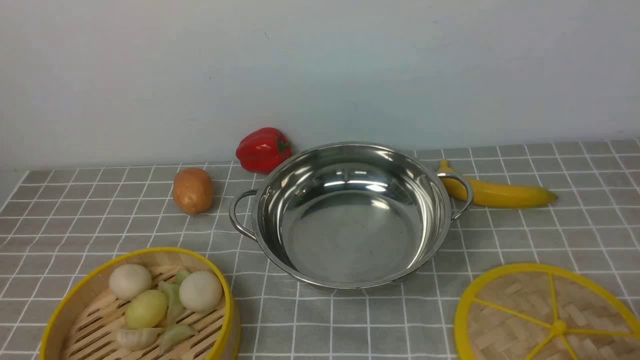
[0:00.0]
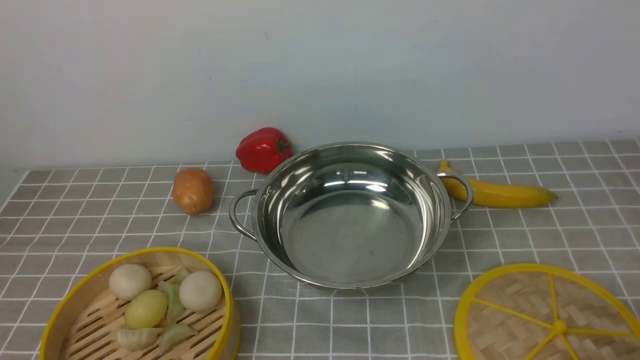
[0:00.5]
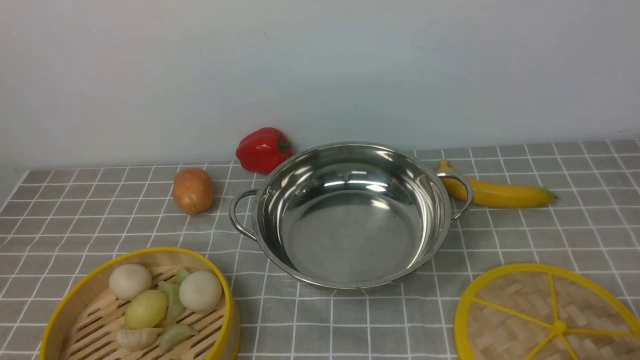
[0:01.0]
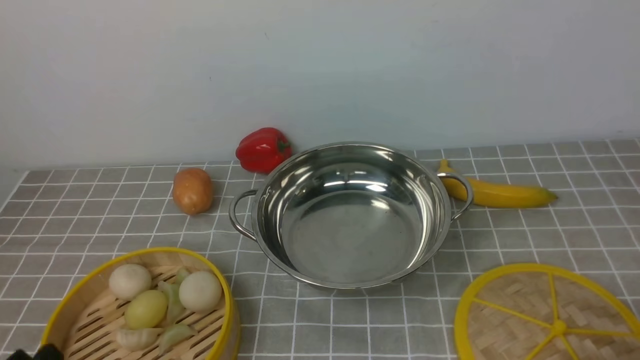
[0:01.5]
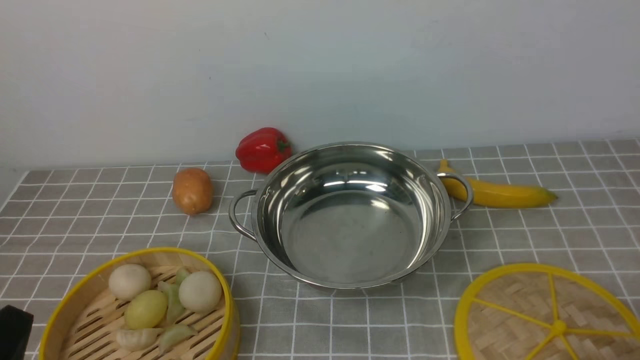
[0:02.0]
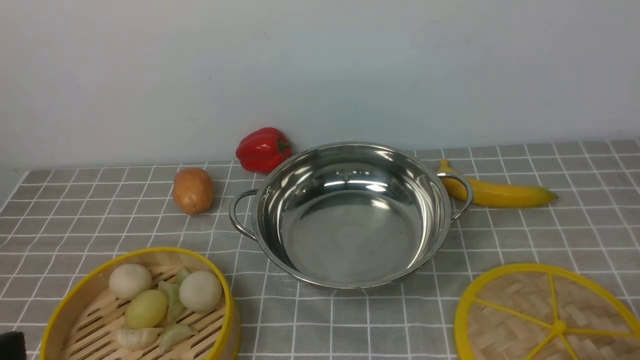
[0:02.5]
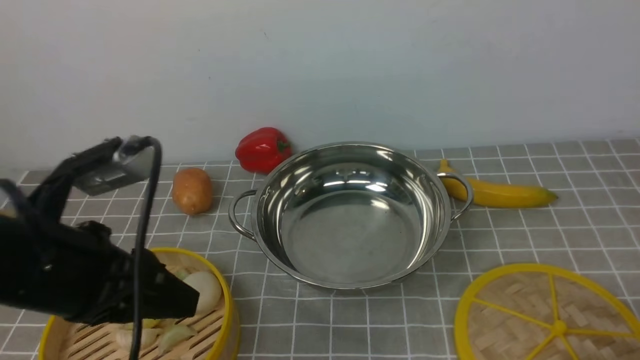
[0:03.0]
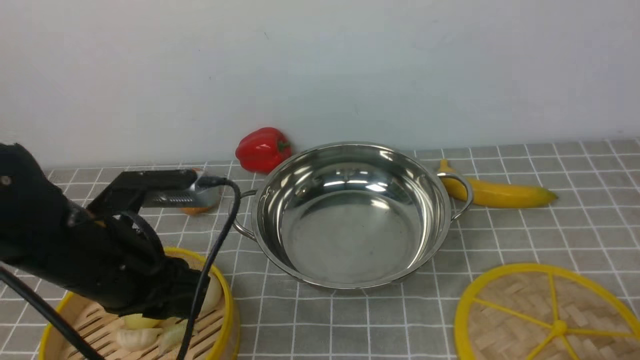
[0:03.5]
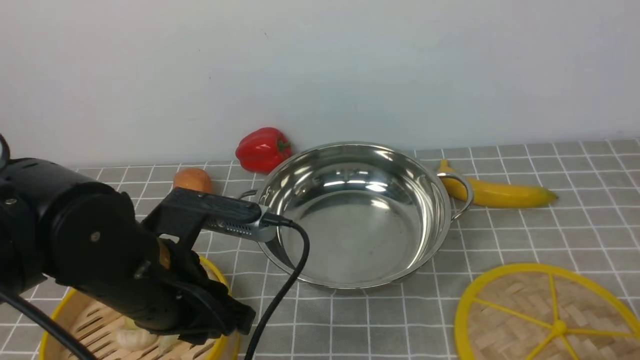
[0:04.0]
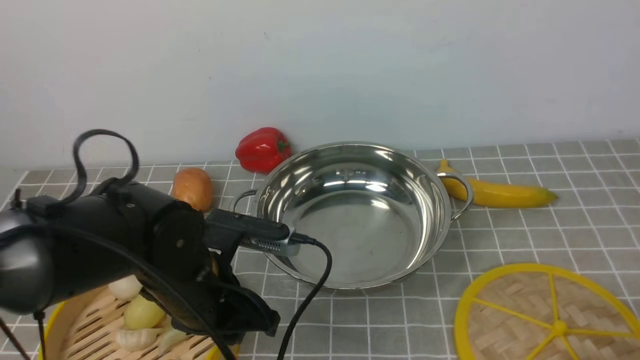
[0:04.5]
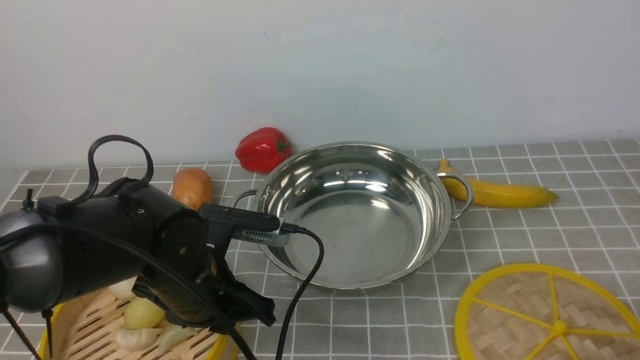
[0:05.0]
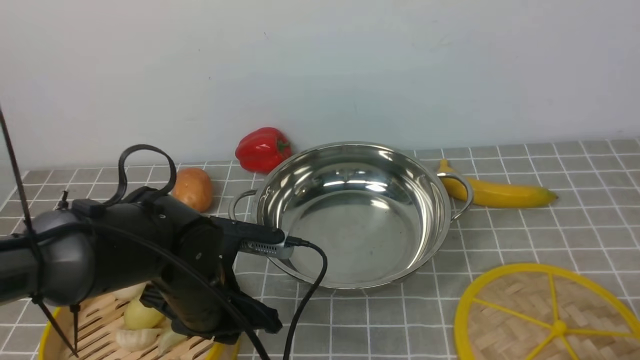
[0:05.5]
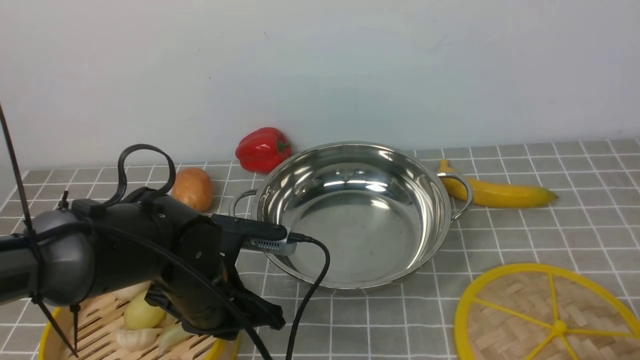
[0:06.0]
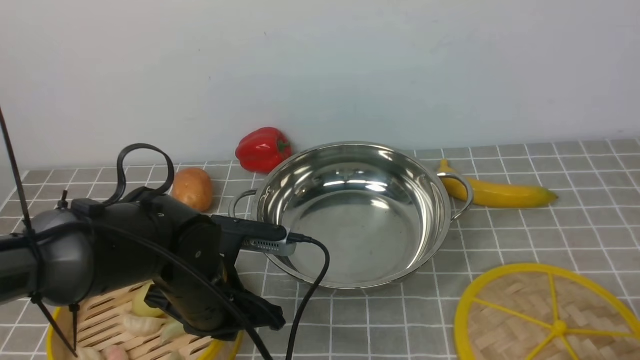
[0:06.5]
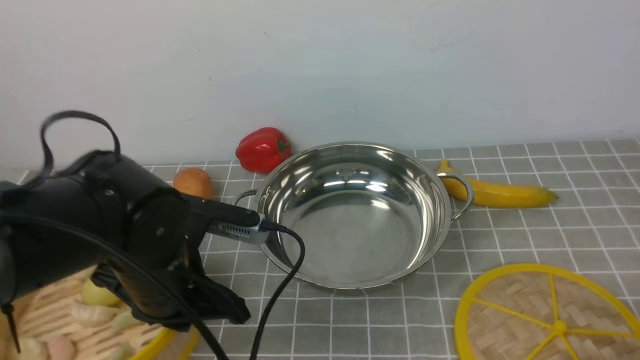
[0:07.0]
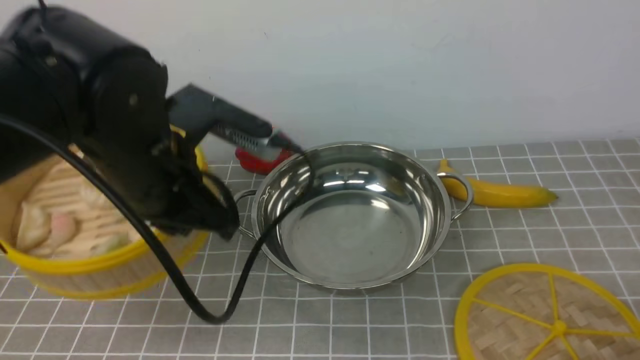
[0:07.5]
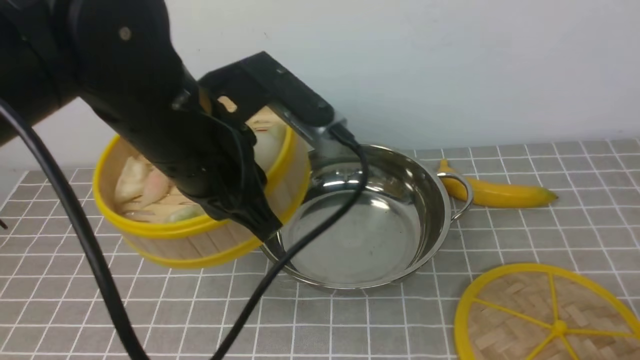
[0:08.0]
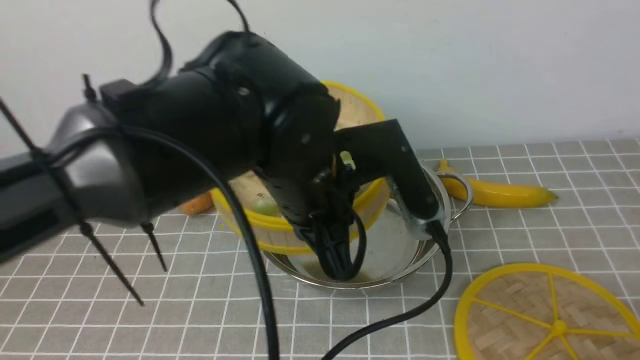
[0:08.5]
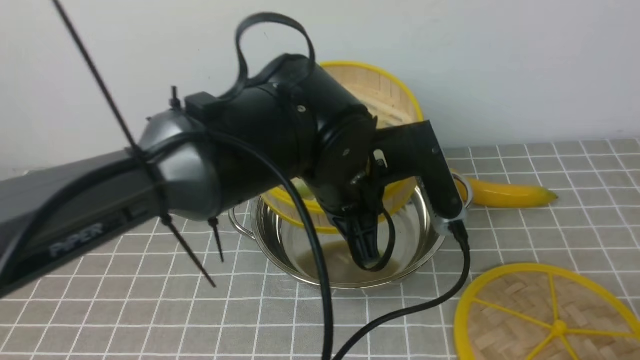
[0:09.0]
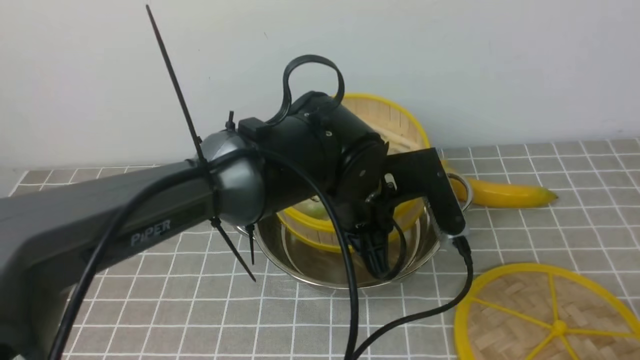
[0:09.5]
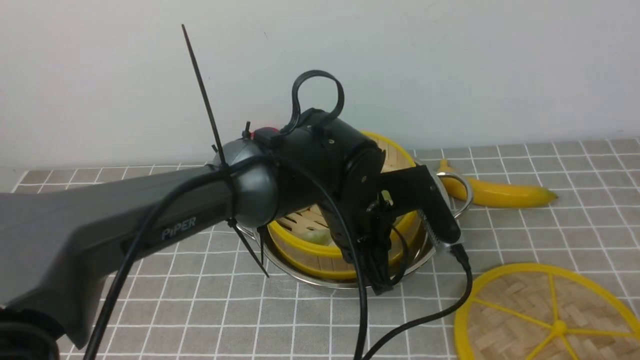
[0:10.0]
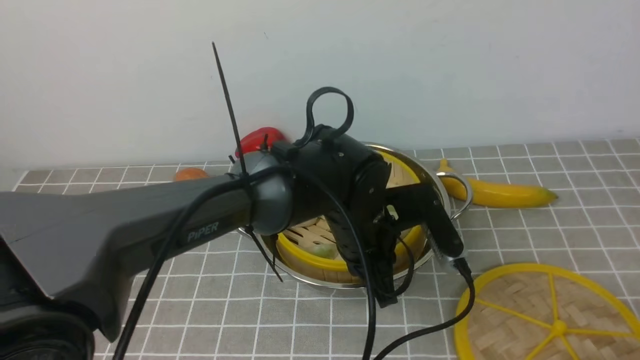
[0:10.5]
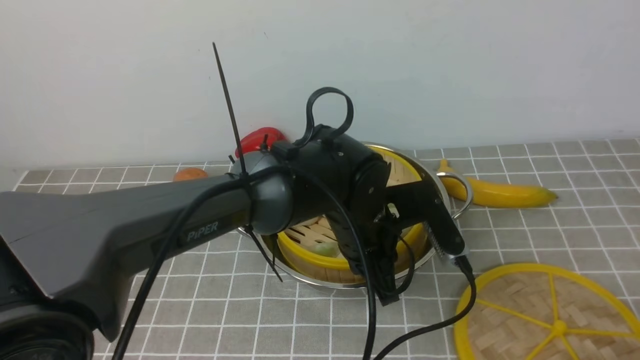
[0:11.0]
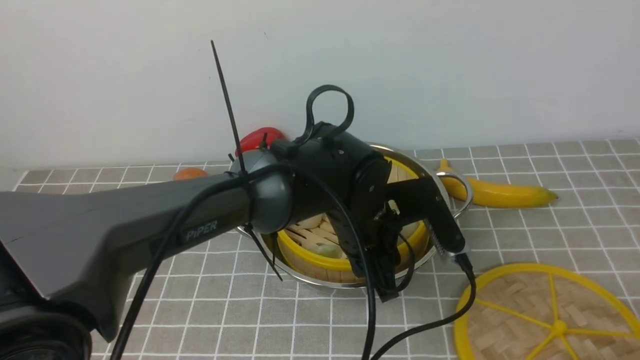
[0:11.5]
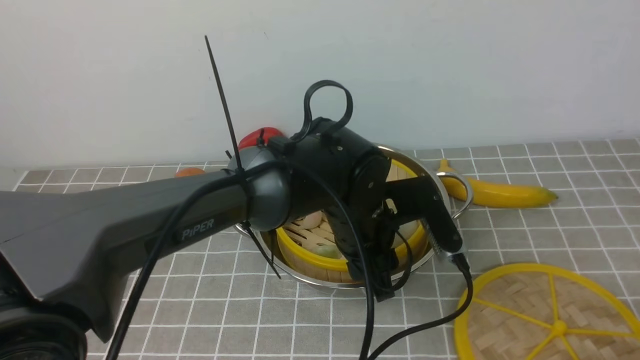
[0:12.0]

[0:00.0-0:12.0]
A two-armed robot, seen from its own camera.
Task of the whole recording: place the steamer in the pot on the grey tablecloth, and put the lid on the steamer.
Step, 0:00.0 to 0:06.5: use the left arm to lift the steamer closest to it.
0:00.0 to 0:02.0: The left gripper travels upward by some 5 cm.
0:02.0 to 0:04.0: The left gripper heads forward and to the right, covering some 20 cm.
0:04.0 to 0:06.0: The left gripper goes some 5 cm downward, and closes.
0:06.0 to 0:08.0: The left gripper moves upward, some 20 cm.
0:08.0 to 0:10.0: The left gripper heads downward, to the right and forward, covering some 20 cm.
0:10.0 to 0:12.0: The left gripper opens up.

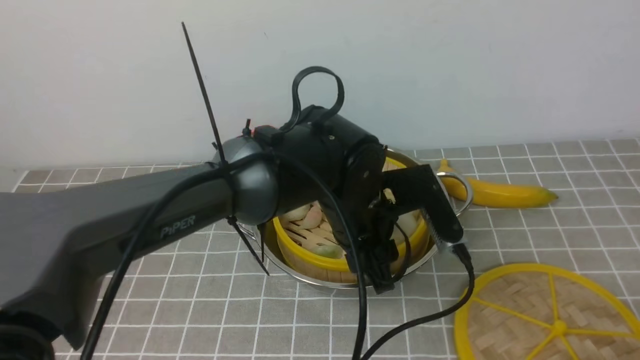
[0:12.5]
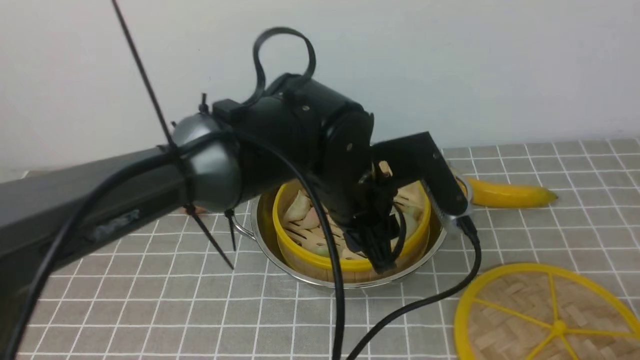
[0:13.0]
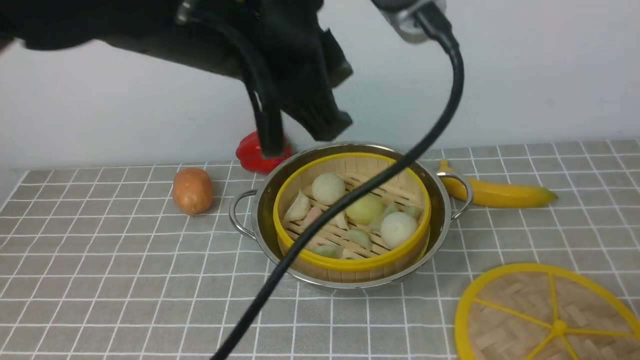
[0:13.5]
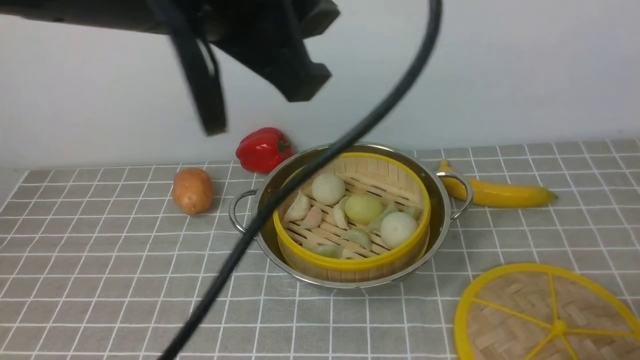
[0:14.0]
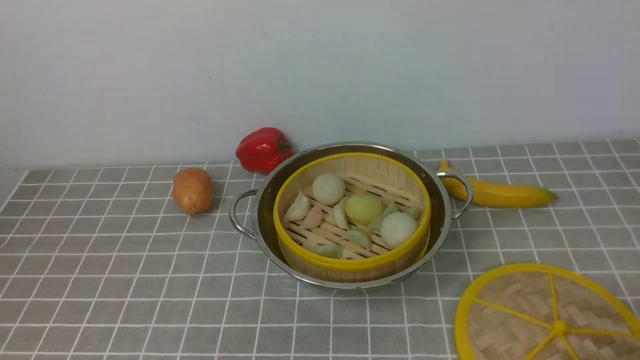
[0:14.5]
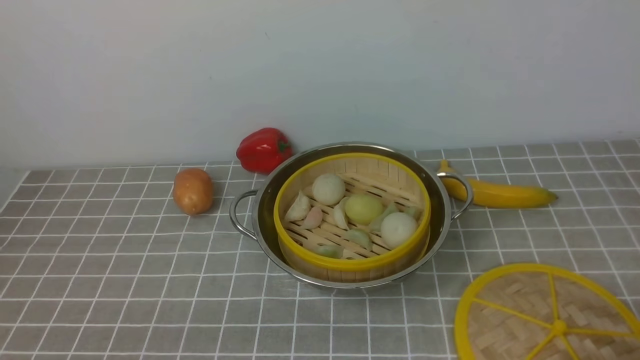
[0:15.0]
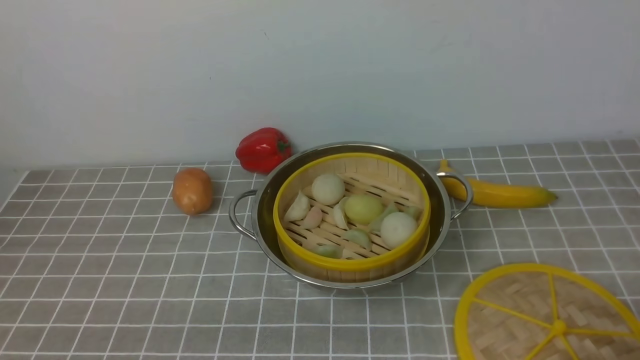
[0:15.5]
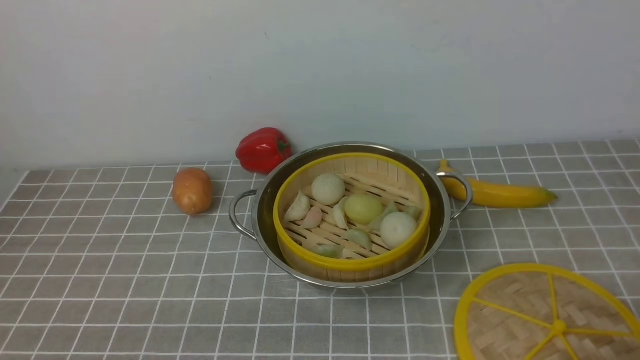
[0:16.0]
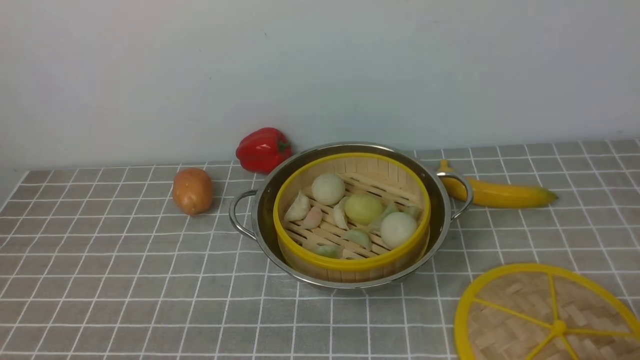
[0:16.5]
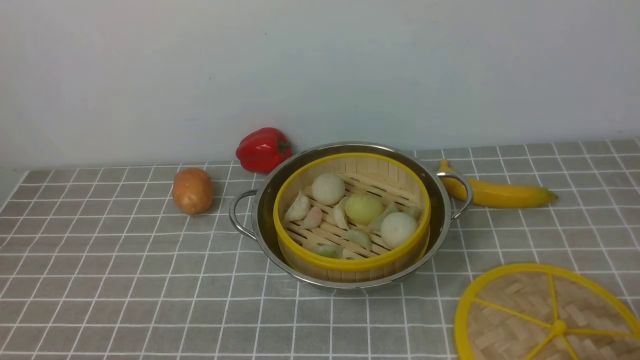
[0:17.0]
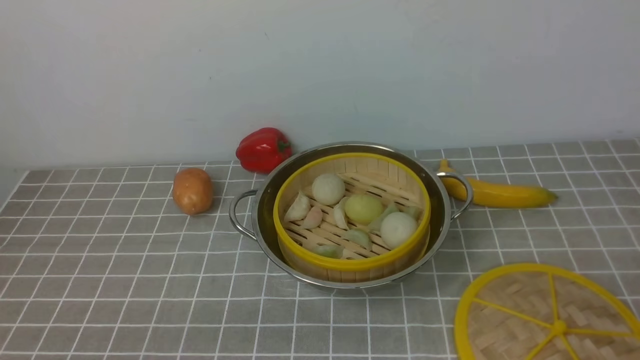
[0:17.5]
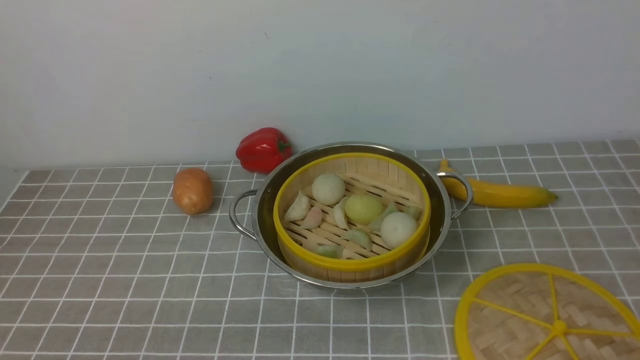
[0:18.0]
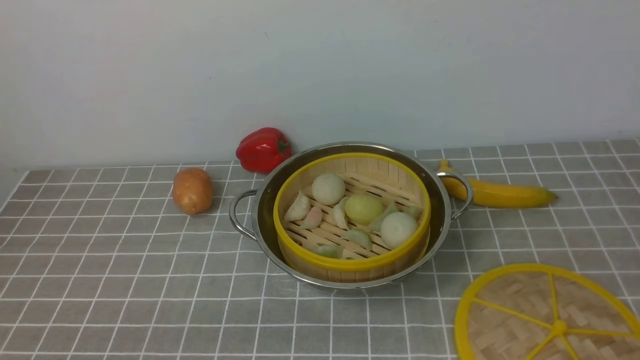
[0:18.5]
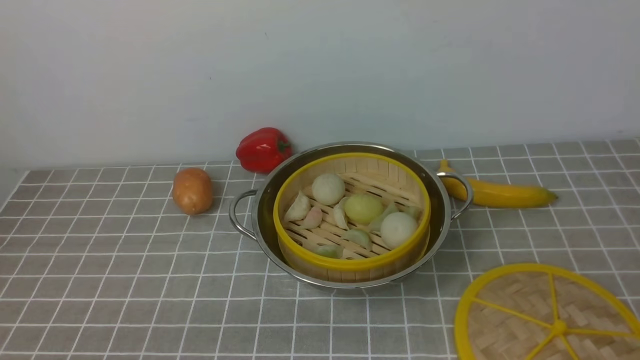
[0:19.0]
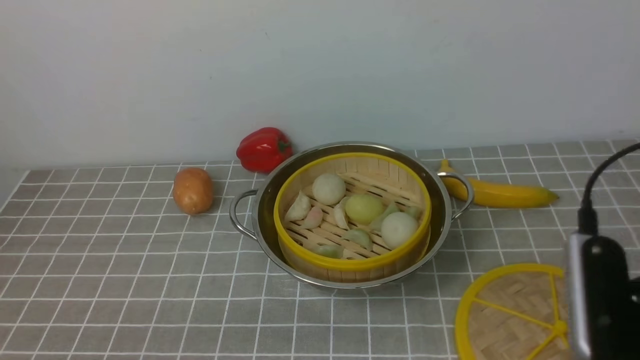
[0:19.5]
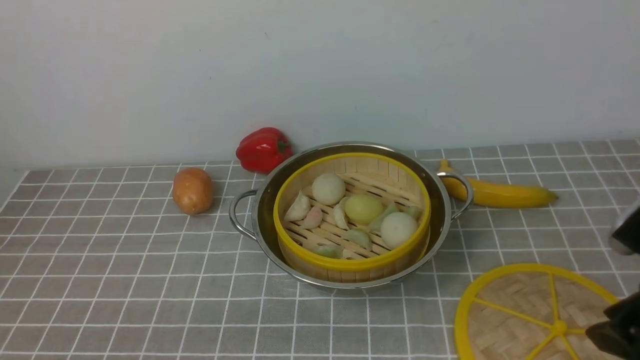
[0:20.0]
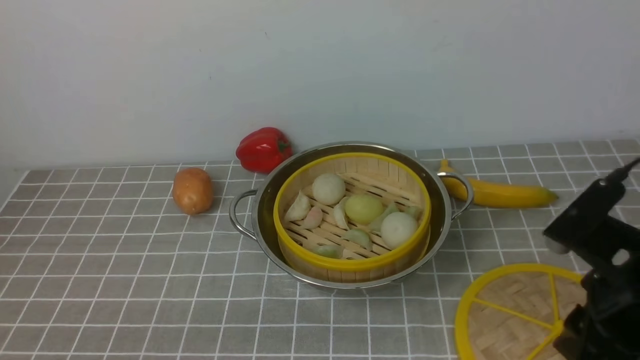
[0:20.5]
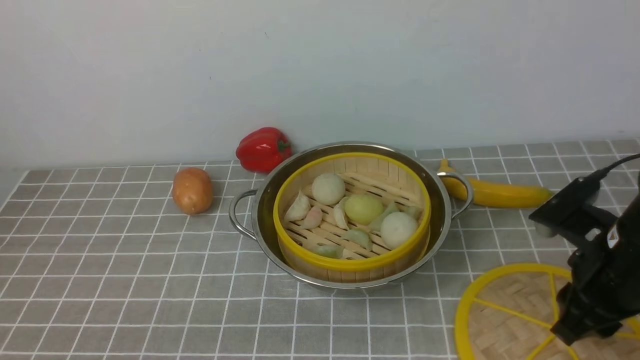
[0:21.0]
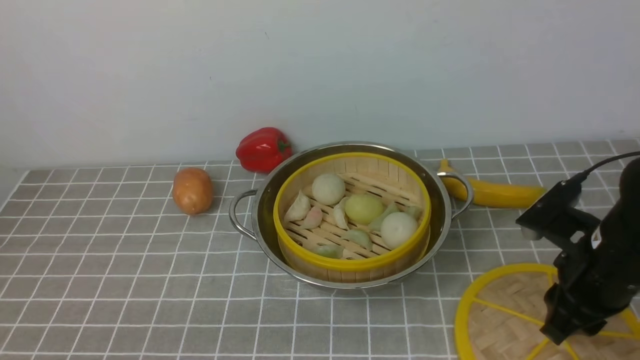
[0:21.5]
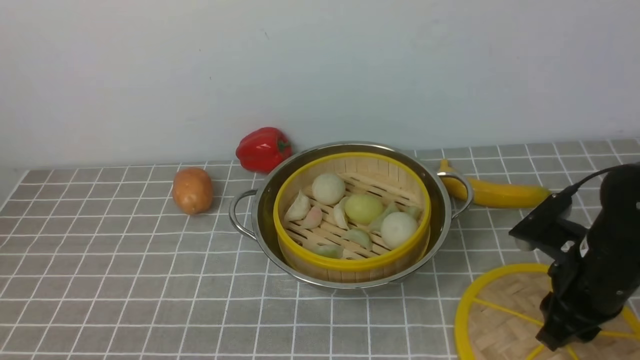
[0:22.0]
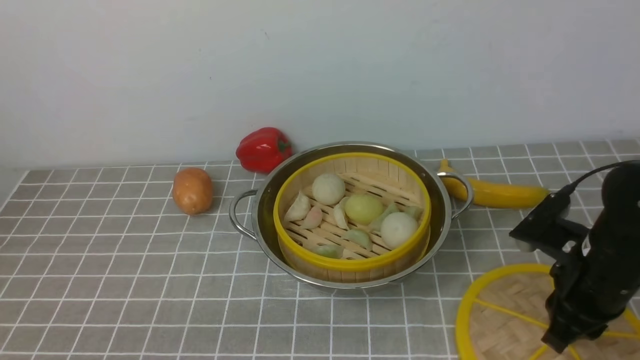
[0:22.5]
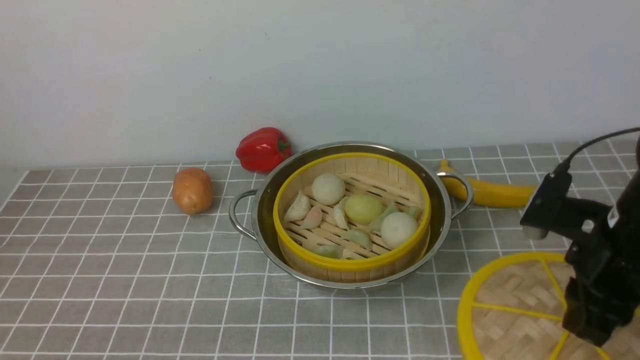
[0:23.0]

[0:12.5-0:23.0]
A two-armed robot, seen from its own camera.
Task of the whole recording: place the steamer in the pot on the grey tablecloth, and put the lid on the steamer.
Step, 0:13.0 to 0:22.5: use the right arm to lift the lid of the steamer.
0:12.5 to 0:14.5: The left gripper shifts approximately 40 cm to the left, backward and upward, and closes its fingers.
0:19.0 to 0:21.0: The right gripper shifts about 20 cm forward and downward.
0:21.0 to 0:23.0: The grippers move only a little.
